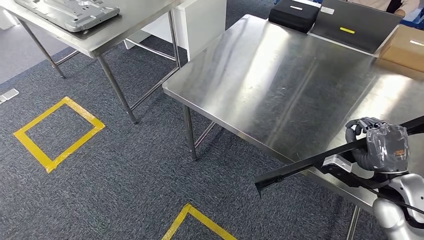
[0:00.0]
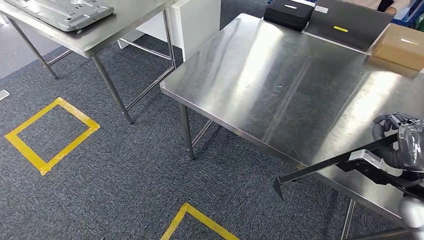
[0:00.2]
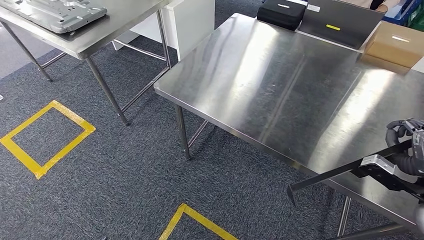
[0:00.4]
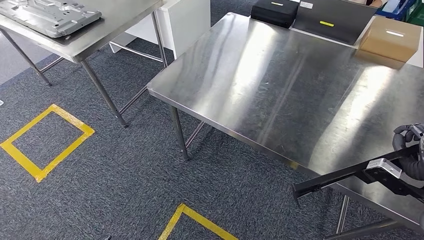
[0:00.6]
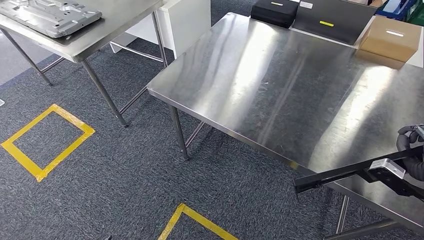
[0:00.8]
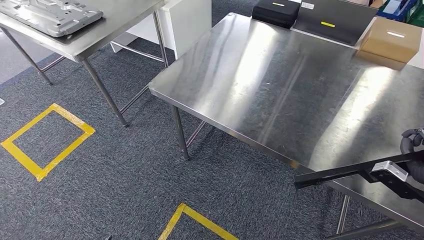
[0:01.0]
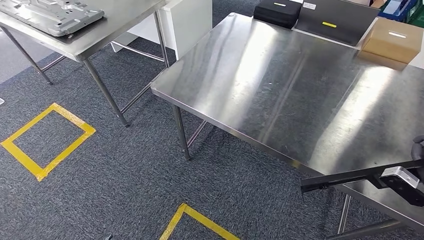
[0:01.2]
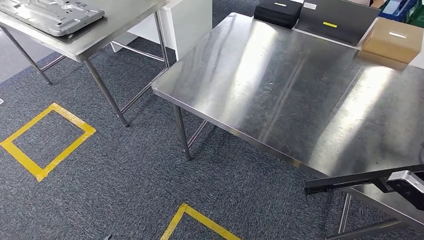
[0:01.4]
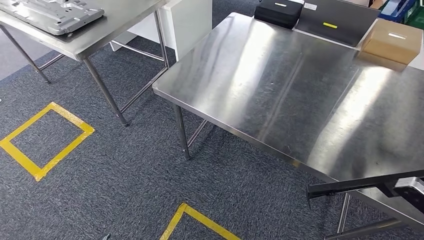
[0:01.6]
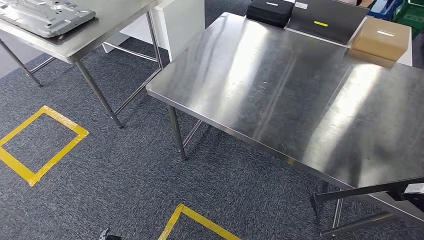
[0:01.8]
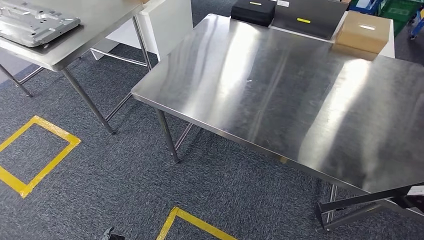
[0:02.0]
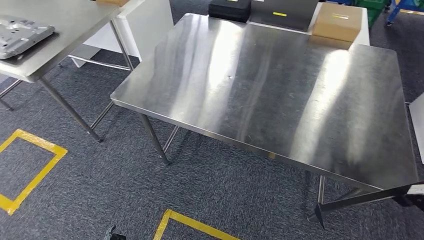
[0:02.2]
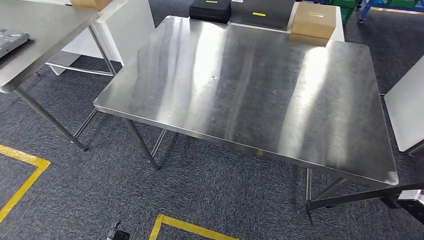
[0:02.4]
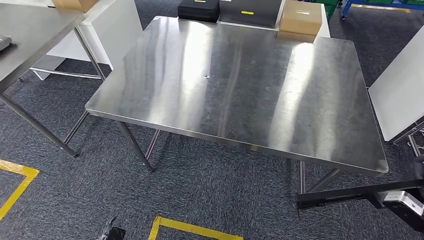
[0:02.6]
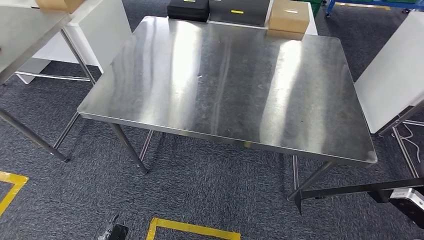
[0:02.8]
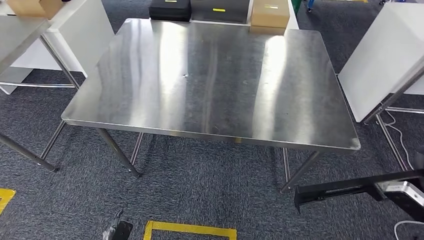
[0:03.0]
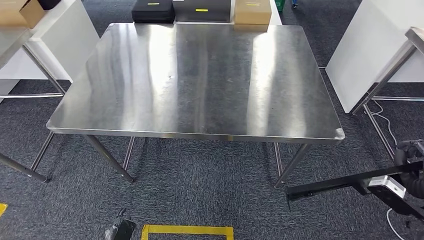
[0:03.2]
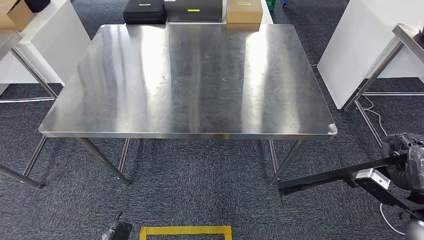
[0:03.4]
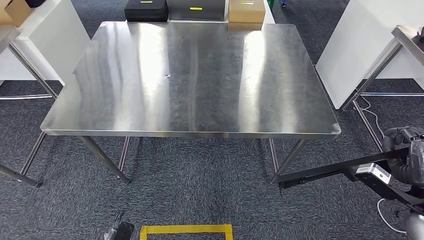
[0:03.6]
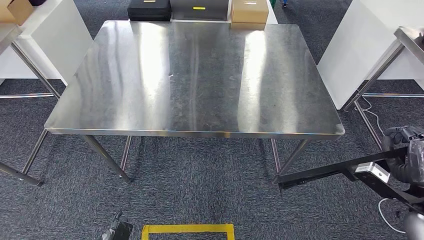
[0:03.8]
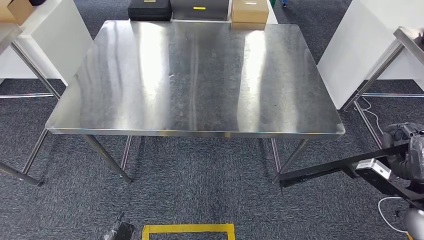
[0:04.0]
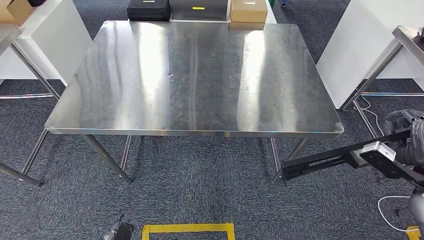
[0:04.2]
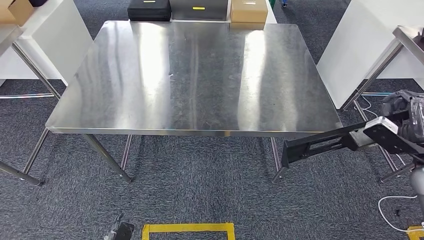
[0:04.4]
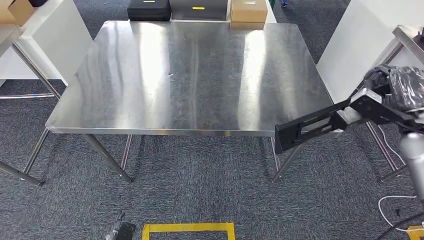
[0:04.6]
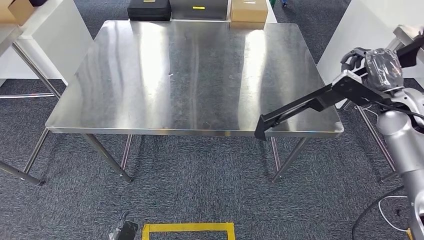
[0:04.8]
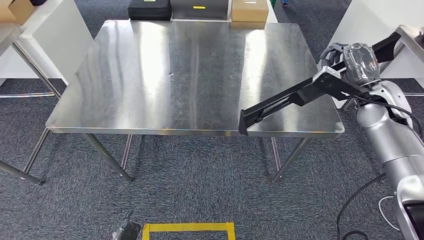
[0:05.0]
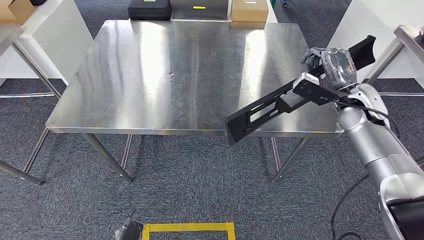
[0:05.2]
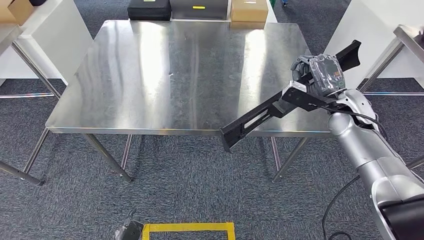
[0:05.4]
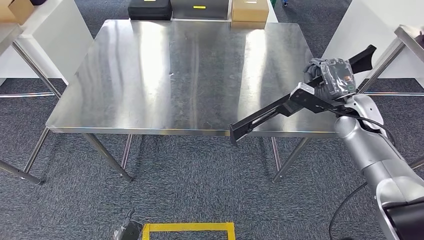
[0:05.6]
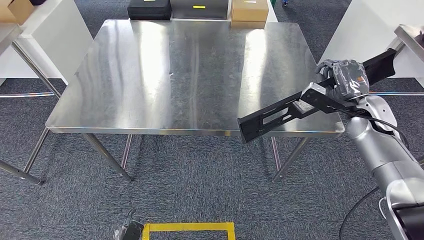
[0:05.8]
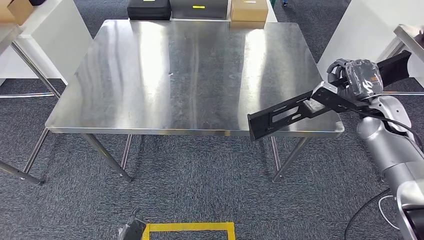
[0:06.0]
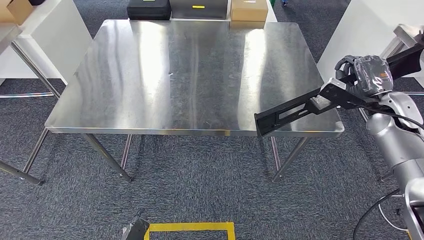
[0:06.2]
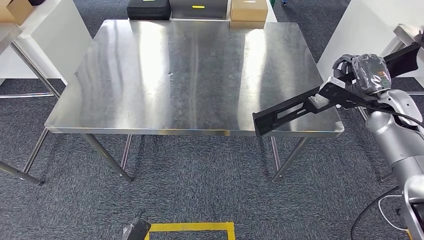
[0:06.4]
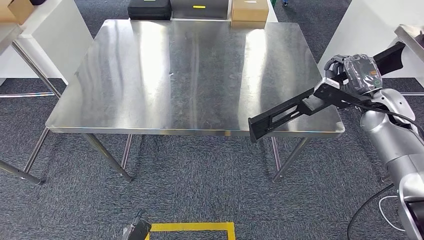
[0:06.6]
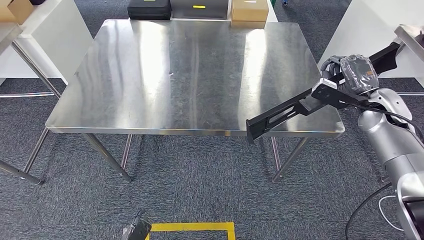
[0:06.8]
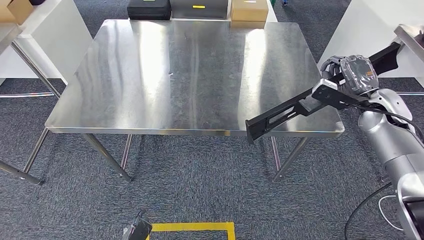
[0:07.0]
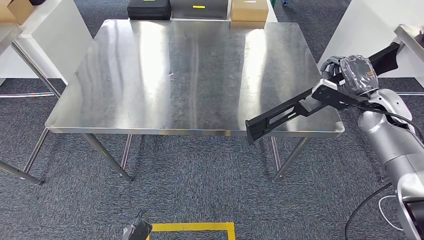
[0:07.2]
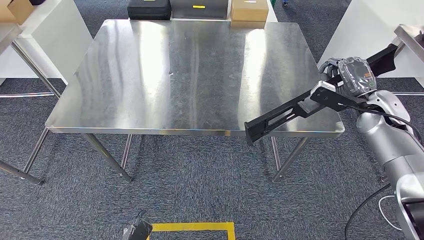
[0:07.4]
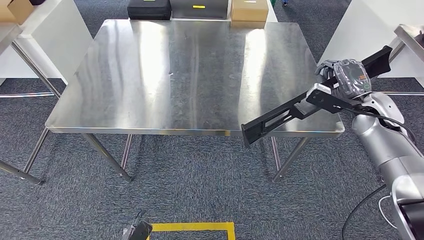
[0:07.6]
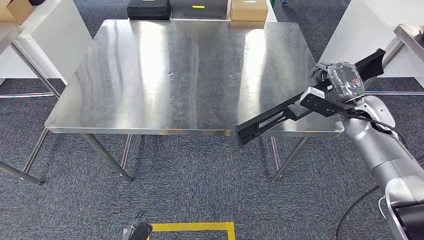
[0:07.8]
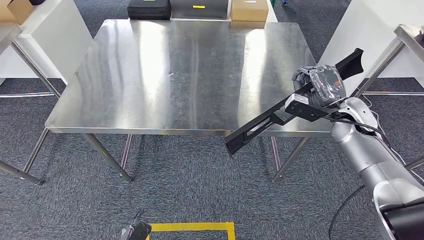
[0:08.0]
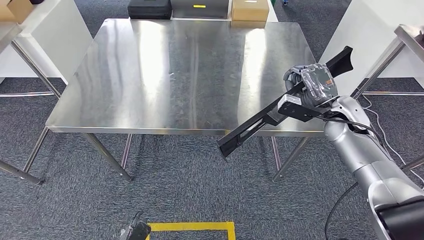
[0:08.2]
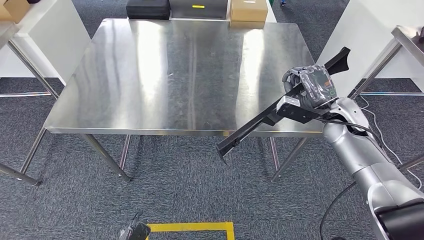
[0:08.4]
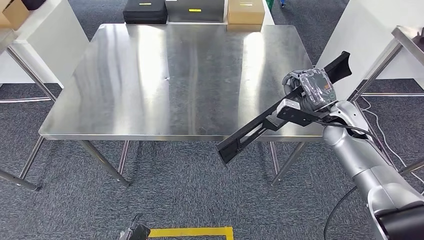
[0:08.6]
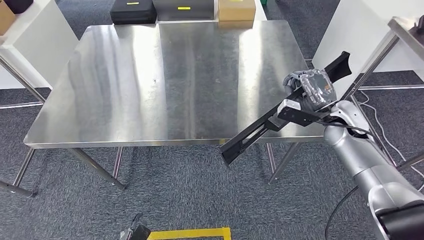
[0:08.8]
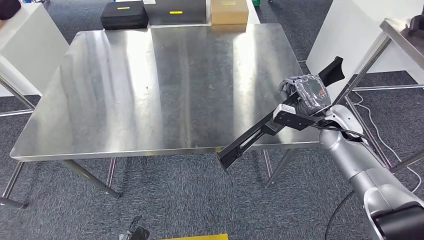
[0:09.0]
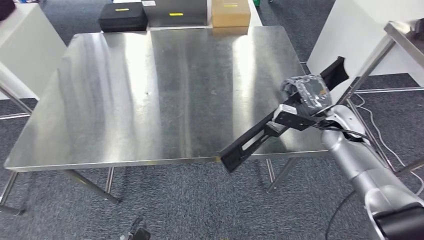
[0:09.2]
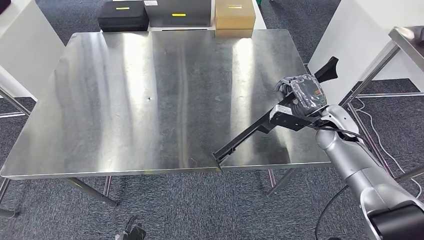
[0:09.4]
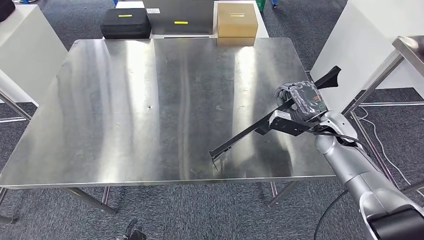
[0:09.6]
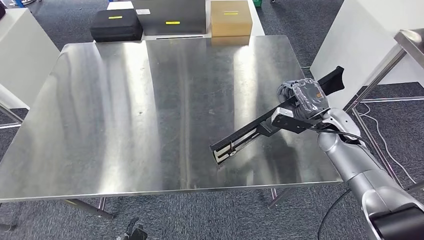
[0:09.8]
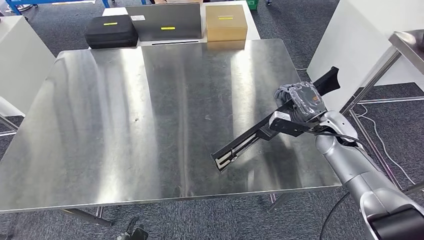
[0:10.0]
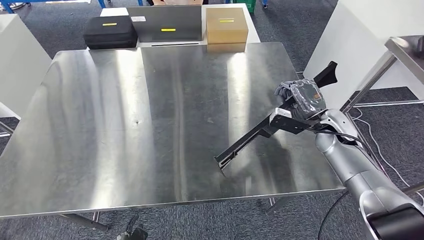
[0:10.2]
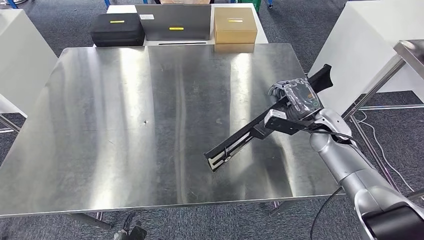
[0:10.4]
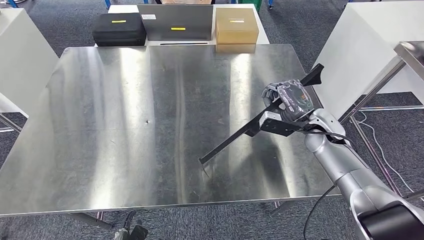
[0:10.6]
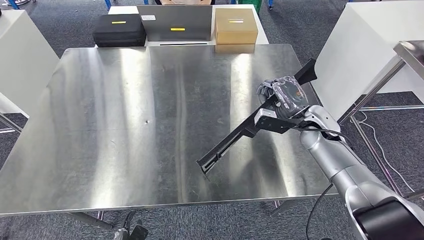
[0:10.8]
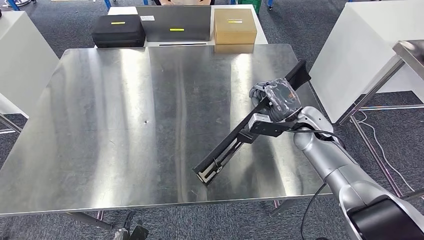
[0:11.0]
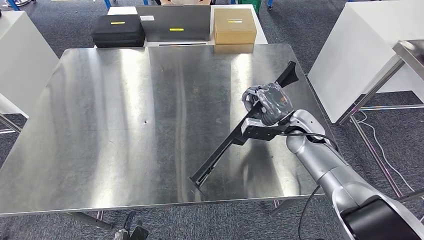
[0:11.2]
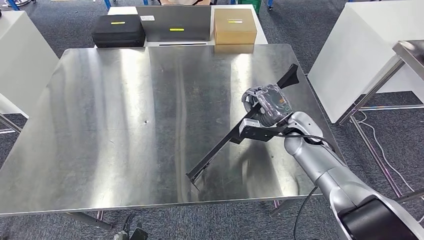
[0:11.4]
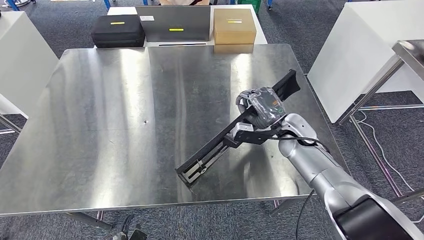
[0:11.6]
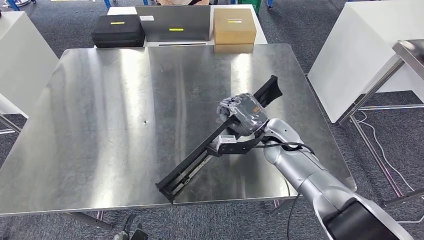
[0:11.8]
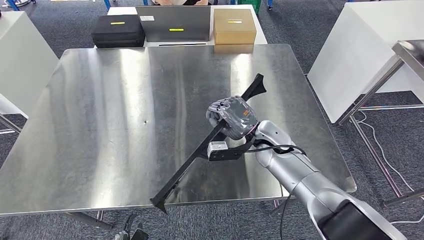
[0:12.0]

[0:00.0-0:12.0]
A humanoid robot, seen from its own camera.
4.4 to 6.0 s: The right hand heads forward and to the left, covering approximately 15 cm.
6.0 to 7.6 s: The hands stay close to where they were, moving slightly.

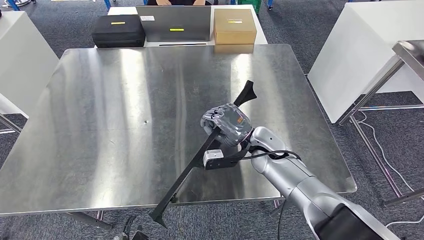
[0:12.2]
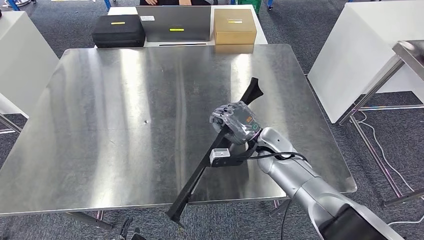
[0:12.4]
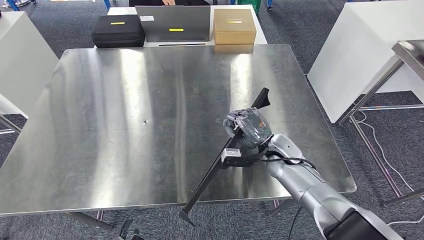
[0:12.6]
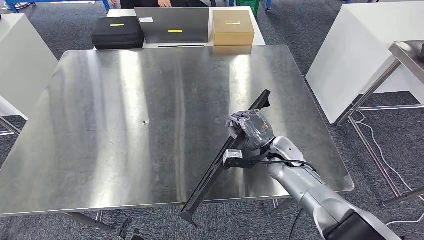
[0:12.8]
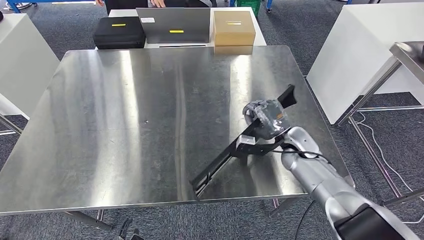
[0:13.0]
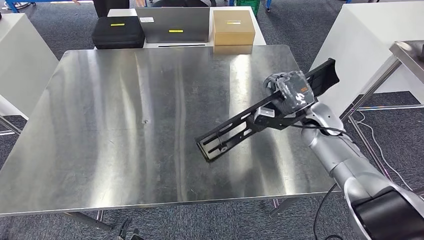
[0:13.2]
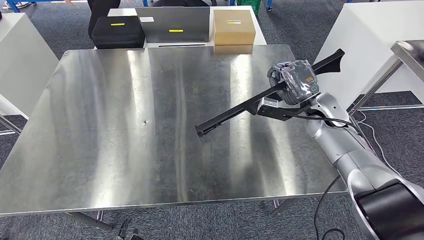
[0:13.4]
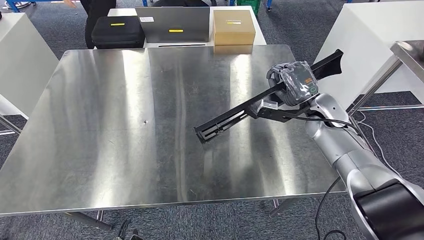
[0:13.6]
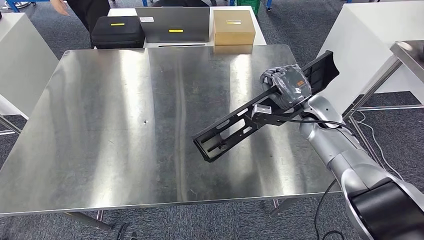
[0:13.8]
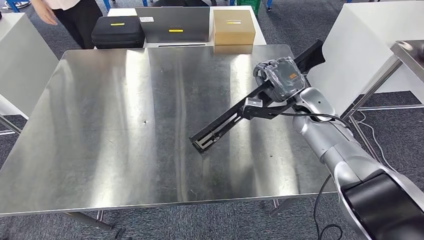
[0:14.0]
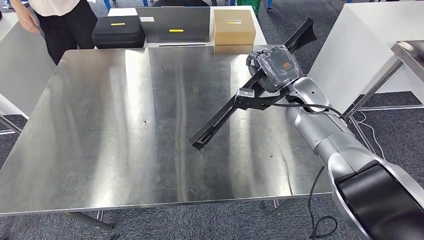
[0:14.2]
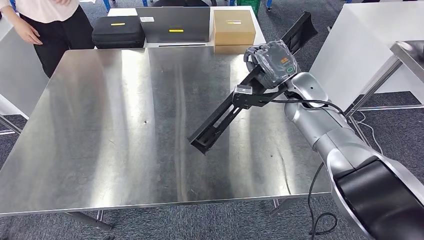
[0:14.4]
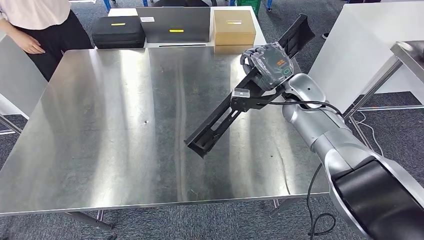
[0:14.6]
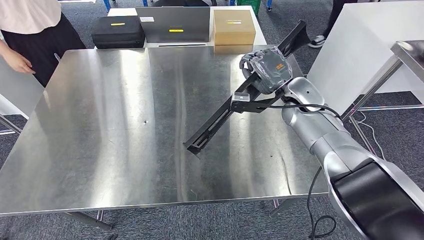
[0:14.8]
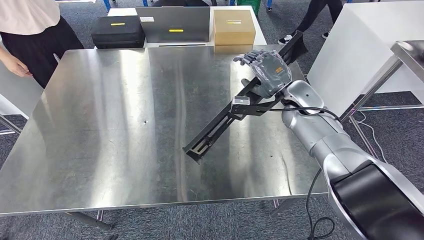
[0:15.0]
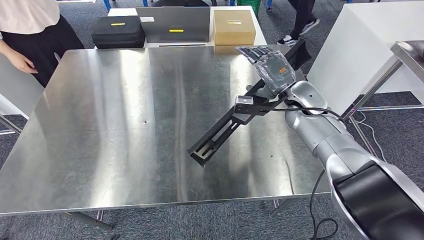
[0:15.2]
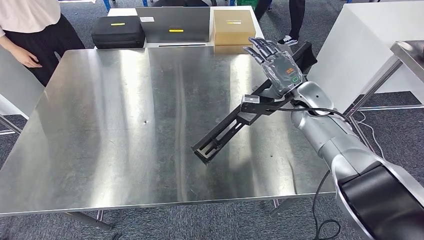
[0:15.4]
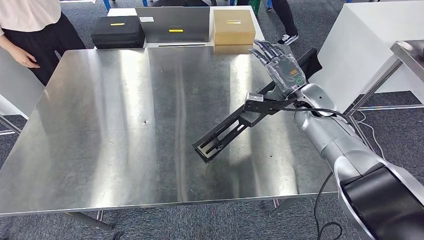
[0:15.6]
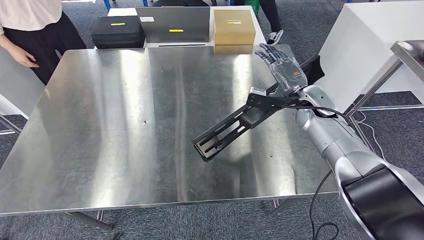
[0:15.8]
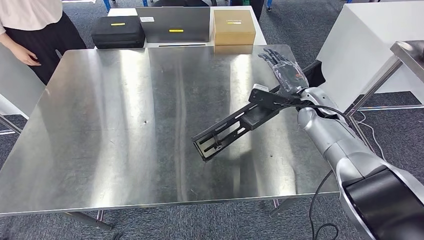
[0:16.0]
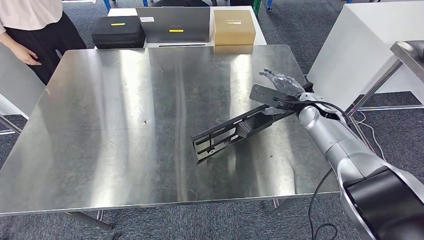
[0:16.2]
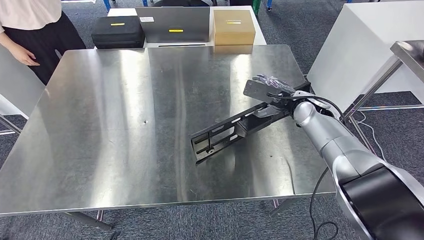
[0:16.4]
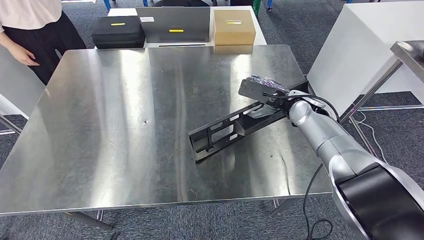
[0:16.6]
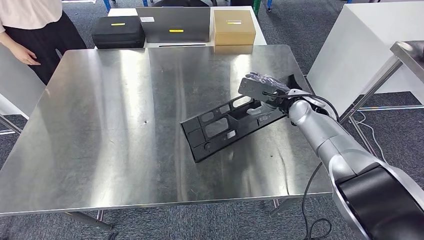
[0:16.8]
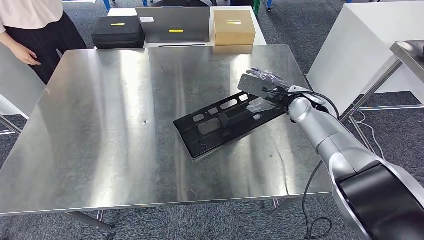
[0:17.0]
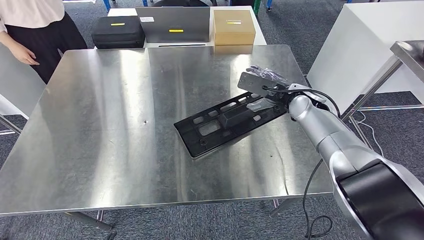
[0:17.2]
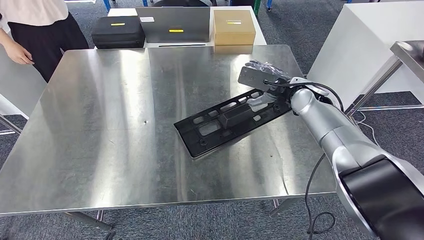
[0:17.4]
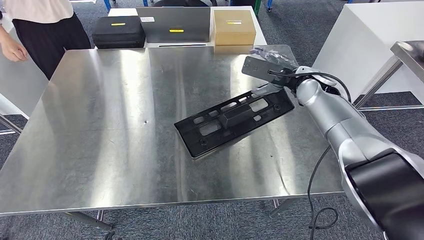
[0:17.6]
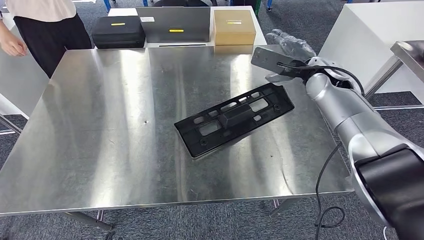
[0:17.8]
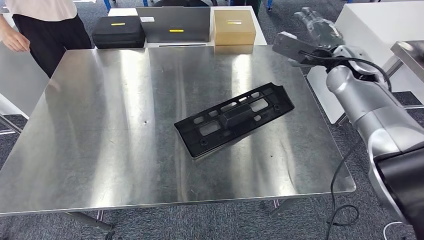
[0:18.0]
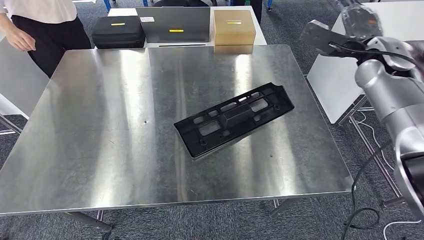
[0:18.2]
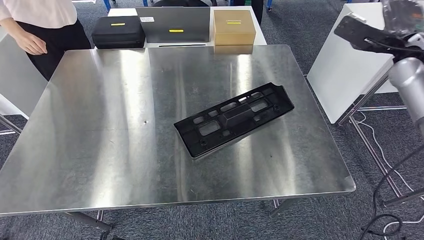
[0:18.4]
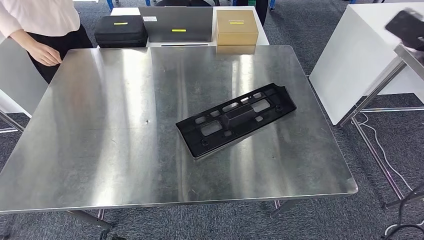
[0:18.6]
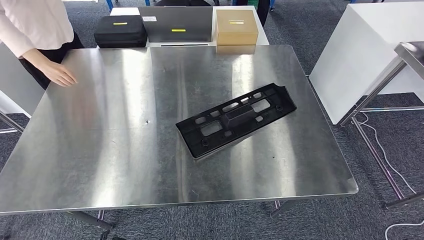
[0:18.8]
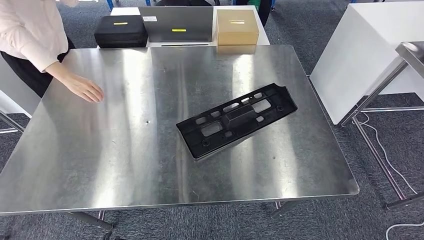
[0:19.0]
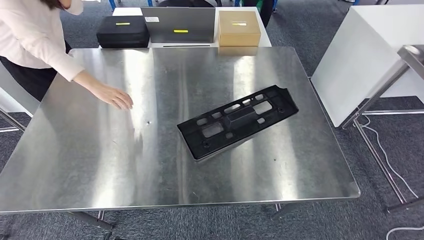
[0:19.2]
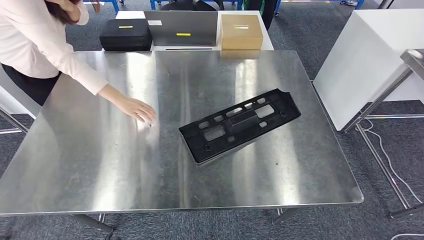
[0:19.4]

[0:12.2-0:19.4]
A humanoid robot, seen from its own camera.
Step, 12.2 to 18.2 s: Insert the large material into the corresponding slot on the workbench.
